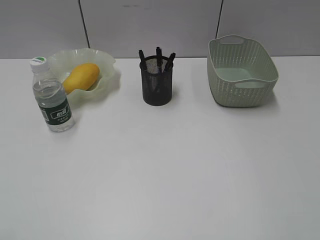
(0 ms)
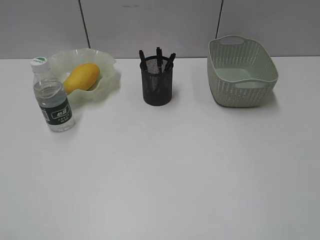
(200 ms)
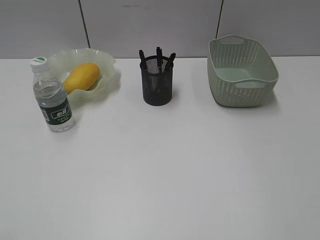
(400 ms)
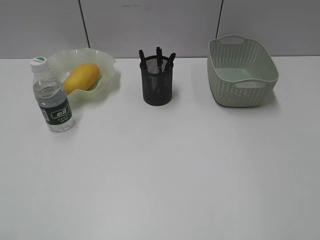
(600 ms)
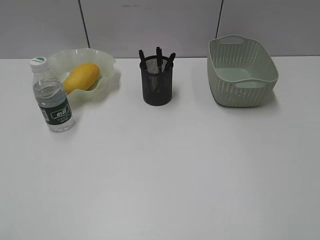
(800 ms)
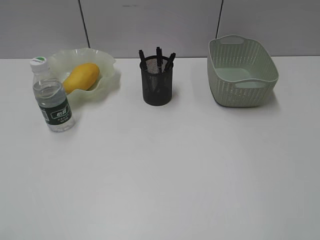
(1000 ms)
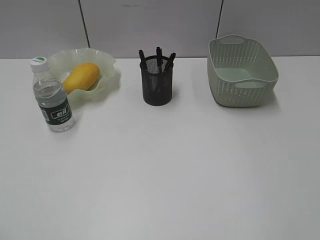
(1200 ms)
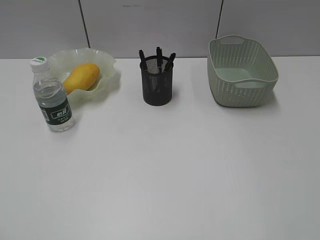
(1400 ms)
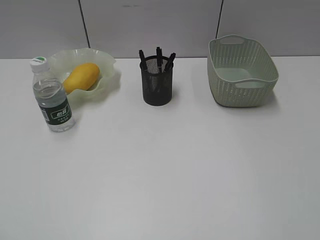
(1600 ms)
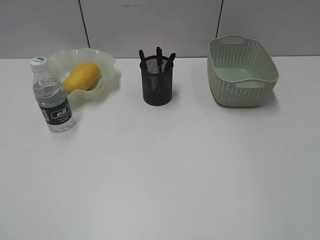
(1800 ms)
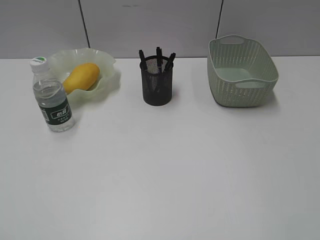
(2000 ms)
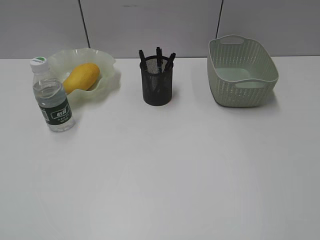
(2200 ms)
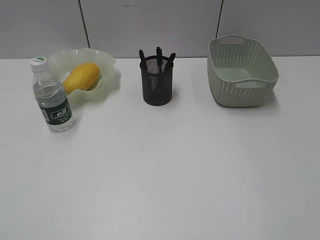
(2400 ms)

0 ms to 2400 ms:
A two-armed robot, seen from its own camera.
0 ms to 1200 ms: Both grippers stay put.
1200 ms to 2400 ms: The two grippers keep their place.

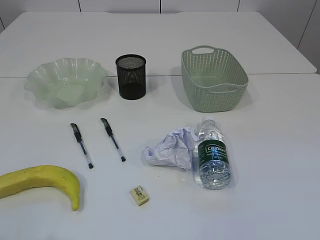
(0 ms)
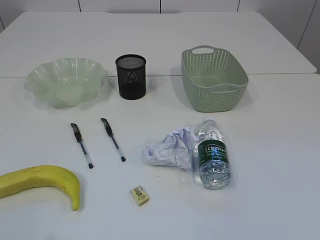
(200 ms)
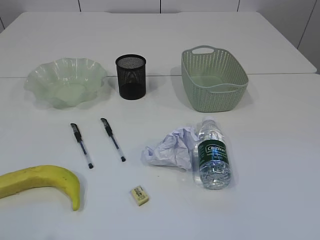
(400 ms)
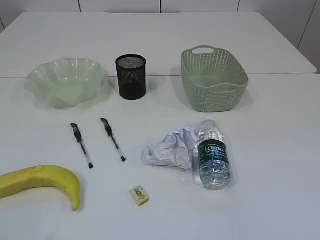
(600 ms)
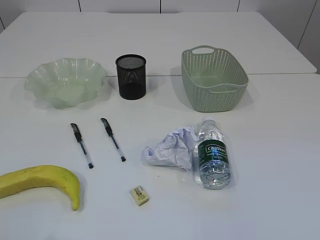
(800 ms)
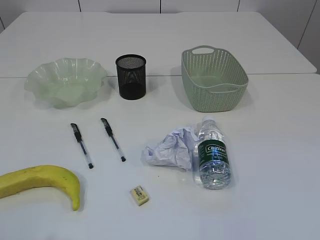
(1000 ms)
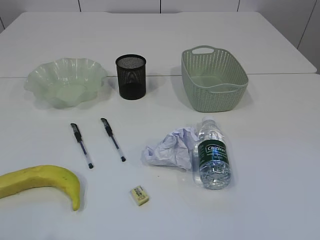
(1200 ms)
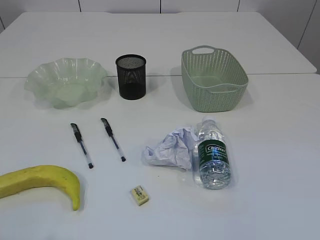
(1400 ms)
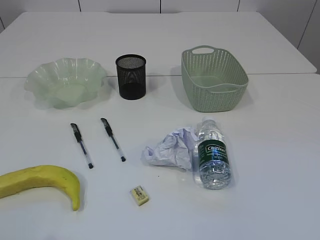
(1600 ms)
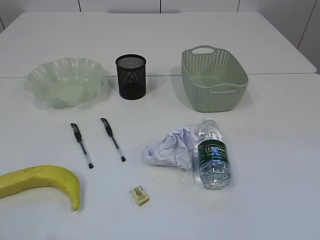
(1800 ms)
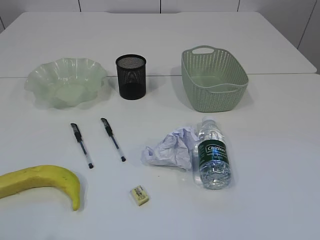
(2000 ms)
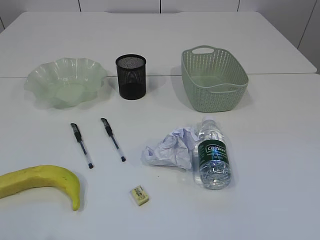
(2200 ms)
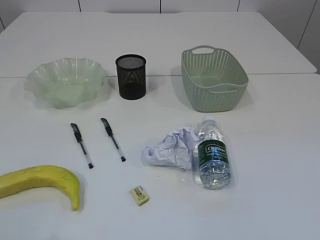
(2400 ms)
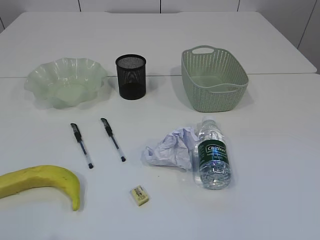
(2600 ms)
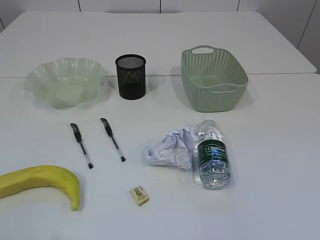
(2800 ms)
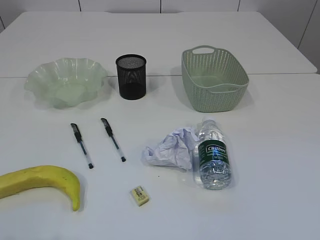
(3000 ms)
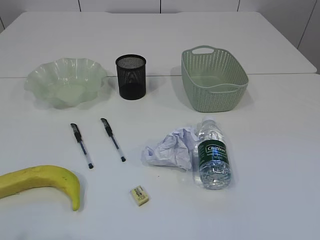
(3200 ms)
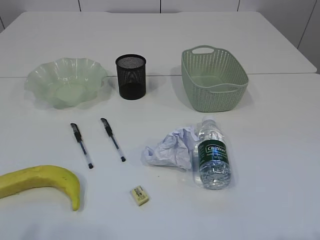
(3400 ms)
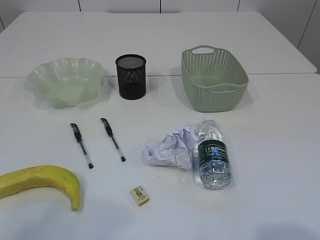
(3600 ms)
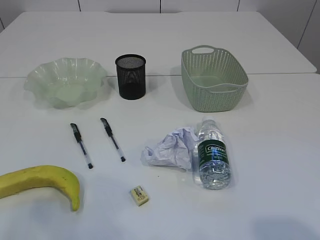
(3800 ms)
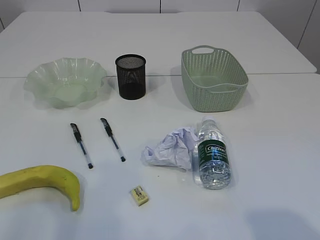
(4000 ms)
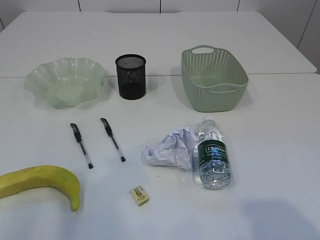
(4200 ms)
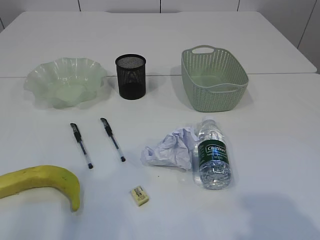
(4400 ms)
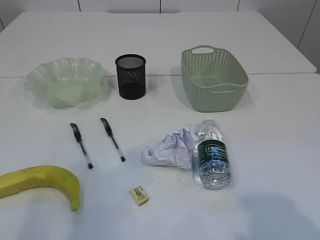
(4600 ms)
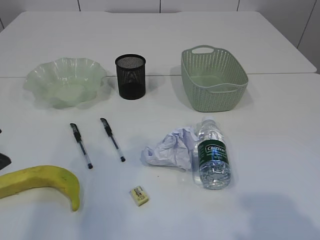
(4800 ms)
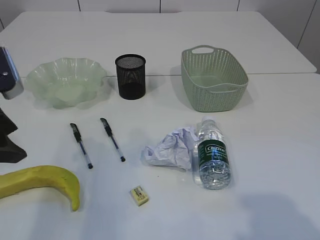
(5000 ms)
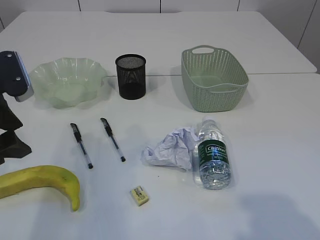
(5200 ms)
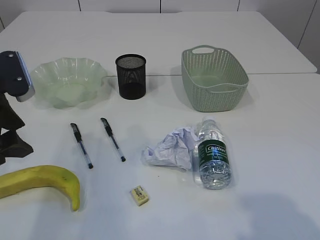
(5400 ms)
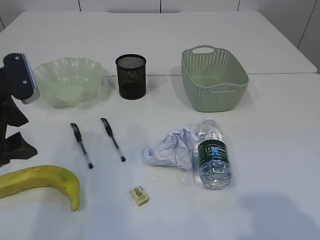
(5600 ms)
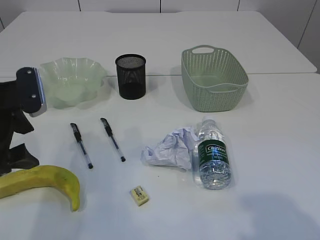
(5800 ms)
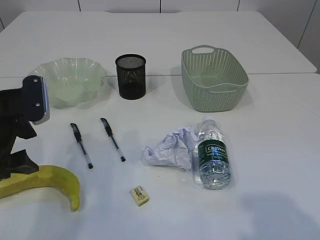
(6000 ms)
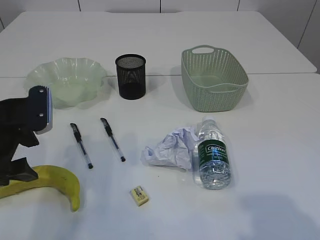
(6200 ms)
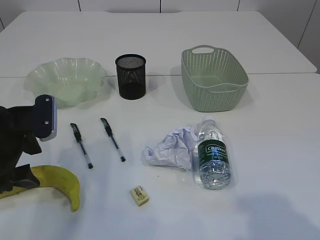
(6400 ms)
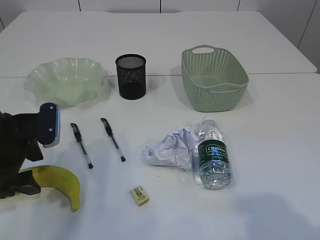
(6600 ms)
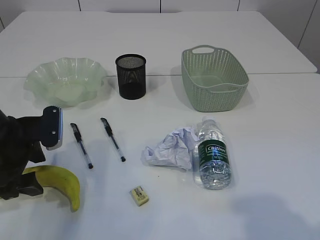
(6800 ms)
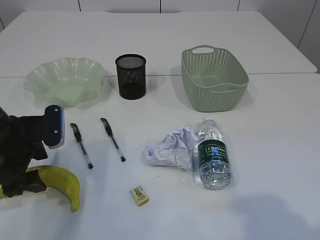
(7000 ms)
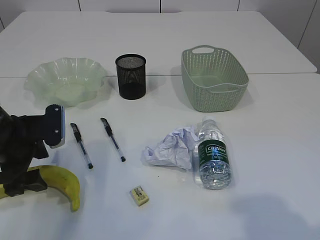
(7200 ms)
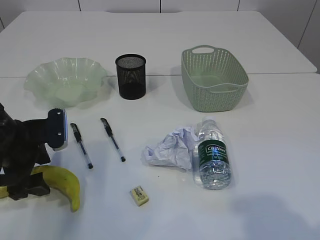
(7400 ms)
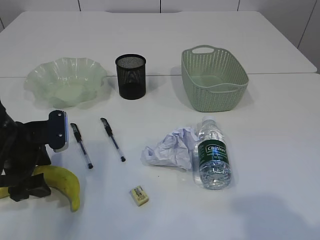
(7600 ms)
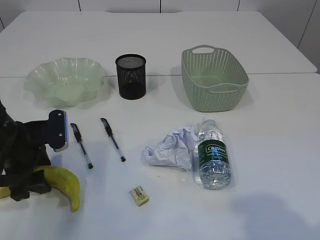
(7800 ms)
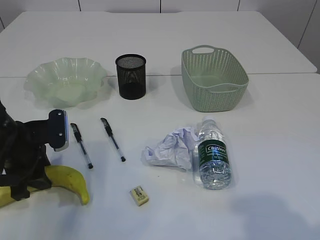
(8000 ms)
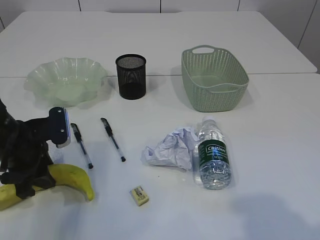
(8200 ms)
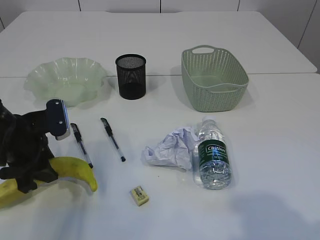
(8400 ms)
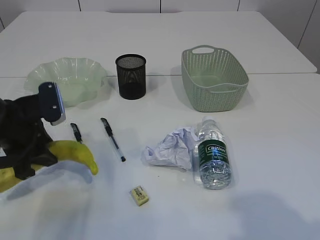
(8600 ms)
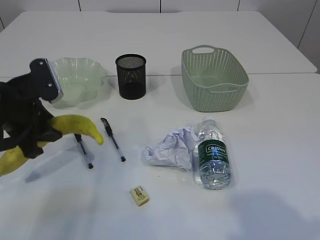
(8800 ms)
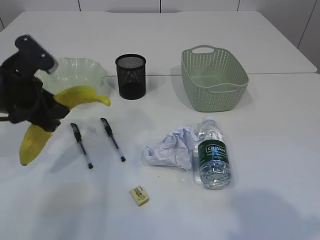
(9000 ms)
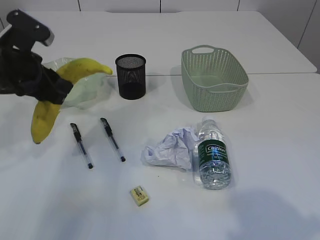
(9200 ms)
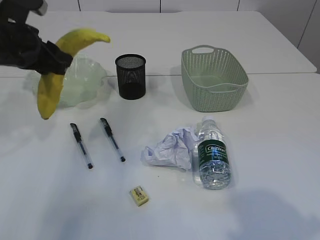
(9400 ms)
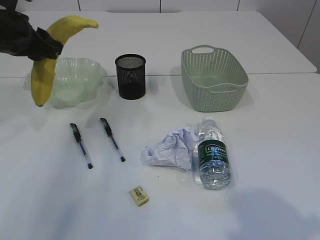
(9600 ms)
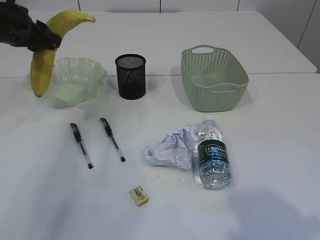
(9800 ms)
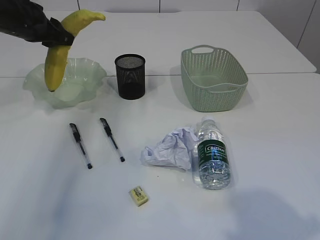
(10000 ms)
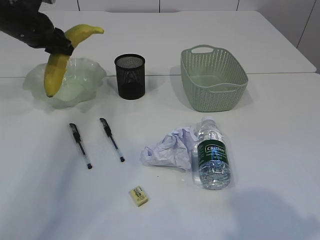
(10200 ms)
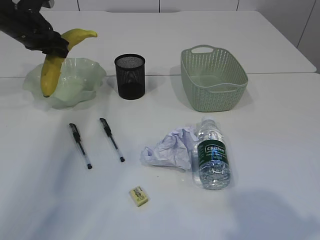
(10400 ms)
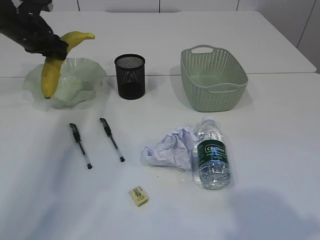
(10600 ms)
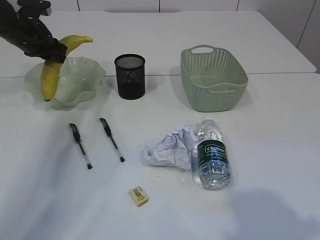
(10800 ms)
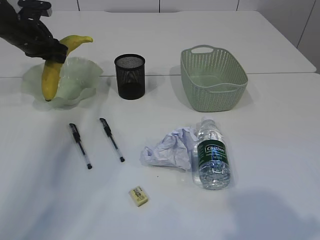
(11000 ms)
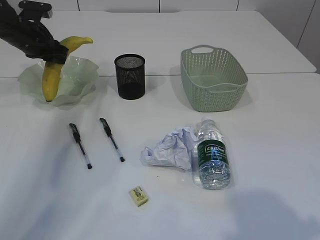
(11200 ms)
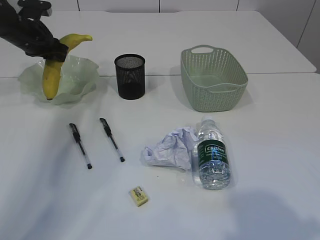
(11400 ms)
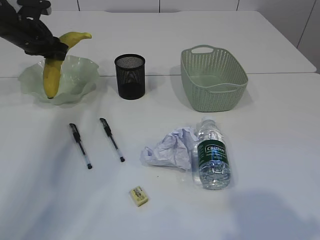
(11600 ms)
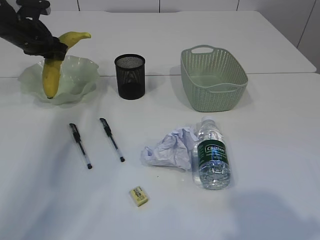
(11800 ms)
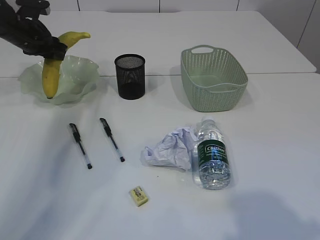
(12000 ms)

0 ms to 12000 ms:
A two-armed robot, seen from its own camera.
1600 ms to 3000 ms: Both grippers stay put.
3000 ms to 4400 ms: The left gripper shifts some 15 cm forward.
4400 ms to 6000 ms: The left gripper travels forward and downward by roughly 15 cm.
6000 ms to 7600 ms: The left gripper goes about 5 cm downward.
7600 ms to 9000 ms: The left gripper moves upward, roughly 10 cm, and closes up.
9000 ms to 10400 ms: The left gripper heads forward, covering some 20 cm.
10400 ms to 12000 ms: The grippers stay close to where they were, moving slightly.

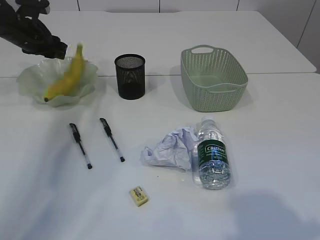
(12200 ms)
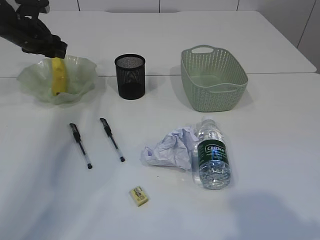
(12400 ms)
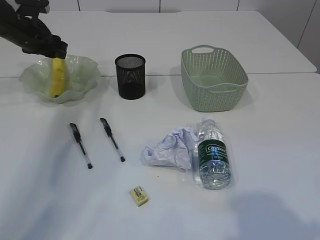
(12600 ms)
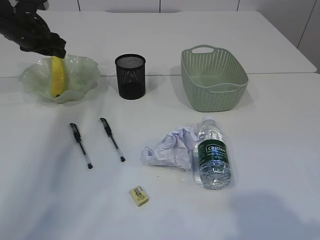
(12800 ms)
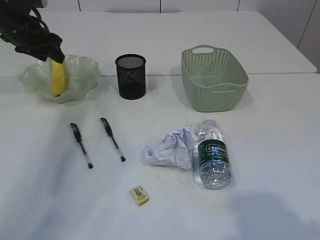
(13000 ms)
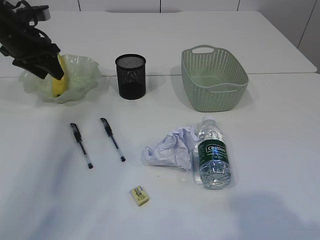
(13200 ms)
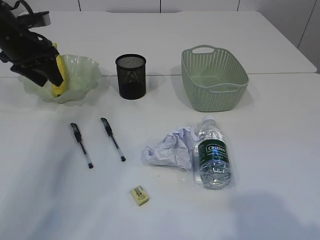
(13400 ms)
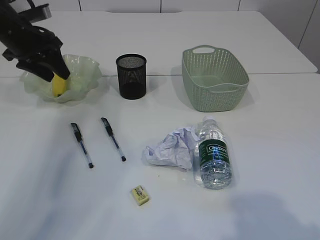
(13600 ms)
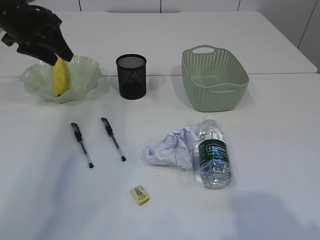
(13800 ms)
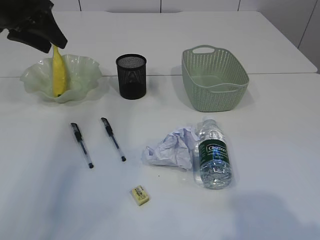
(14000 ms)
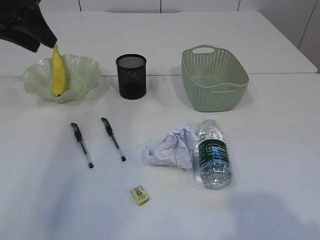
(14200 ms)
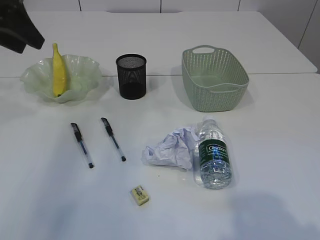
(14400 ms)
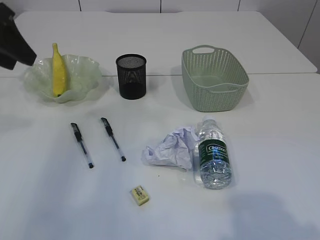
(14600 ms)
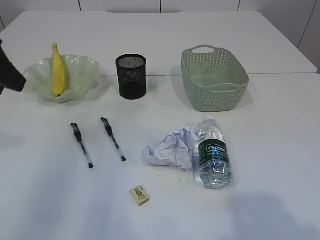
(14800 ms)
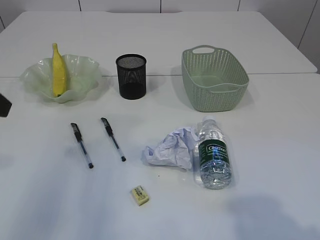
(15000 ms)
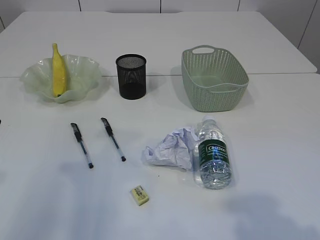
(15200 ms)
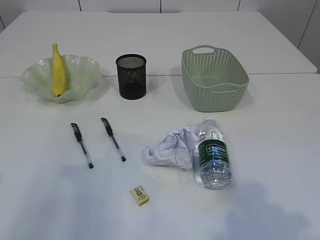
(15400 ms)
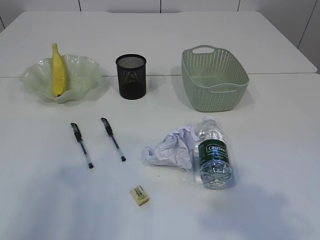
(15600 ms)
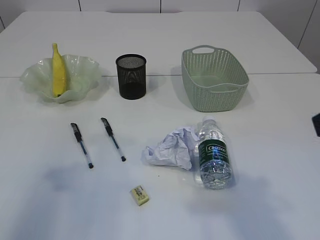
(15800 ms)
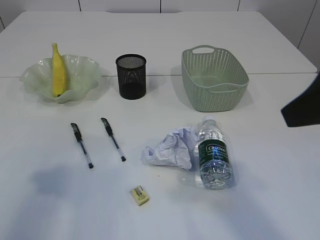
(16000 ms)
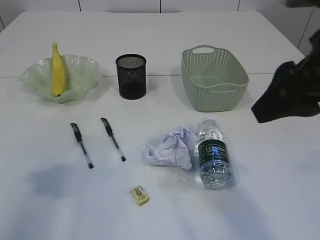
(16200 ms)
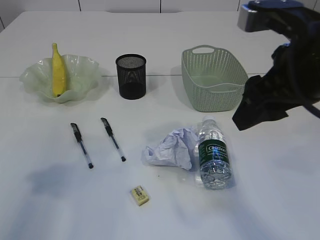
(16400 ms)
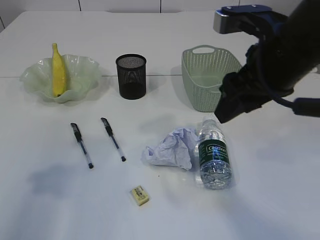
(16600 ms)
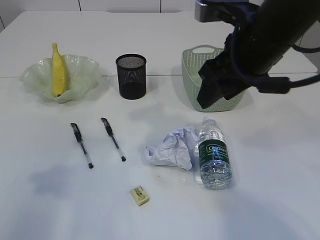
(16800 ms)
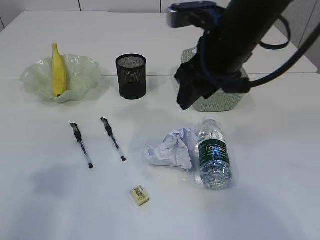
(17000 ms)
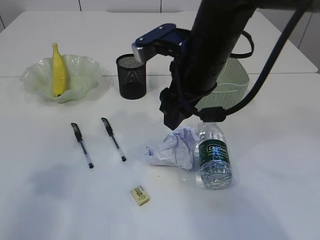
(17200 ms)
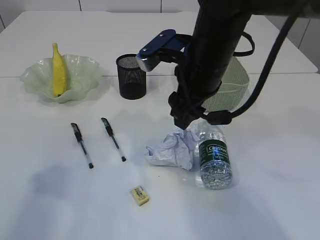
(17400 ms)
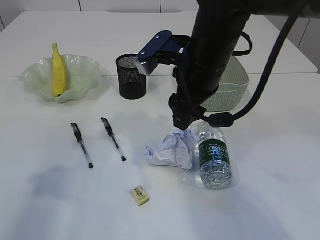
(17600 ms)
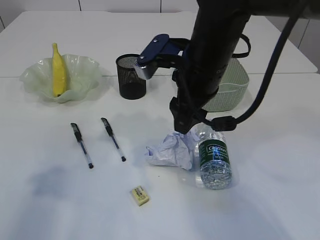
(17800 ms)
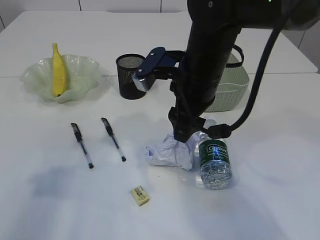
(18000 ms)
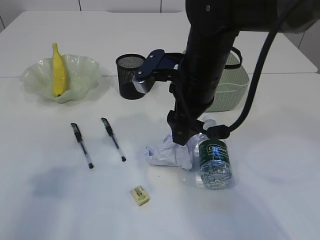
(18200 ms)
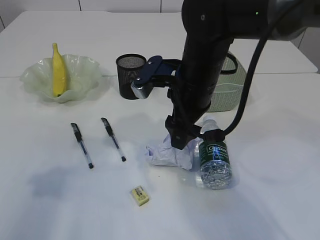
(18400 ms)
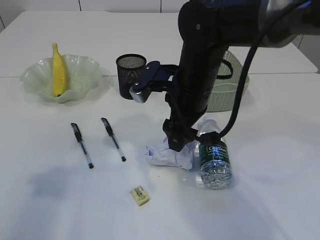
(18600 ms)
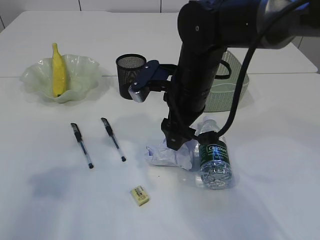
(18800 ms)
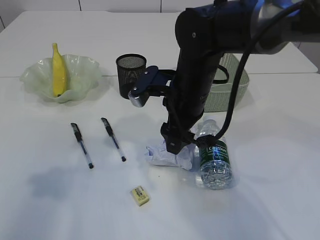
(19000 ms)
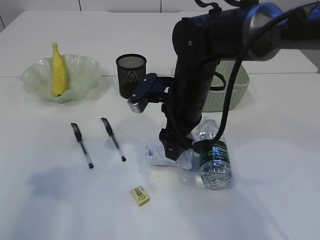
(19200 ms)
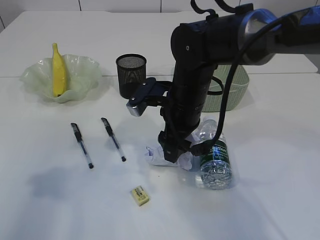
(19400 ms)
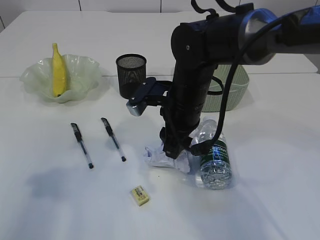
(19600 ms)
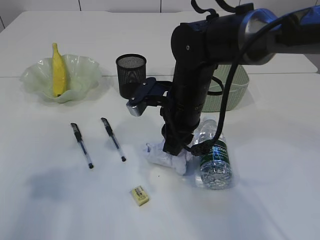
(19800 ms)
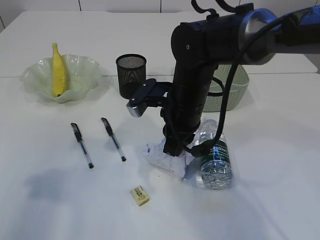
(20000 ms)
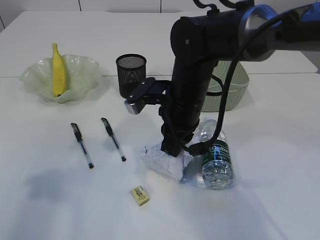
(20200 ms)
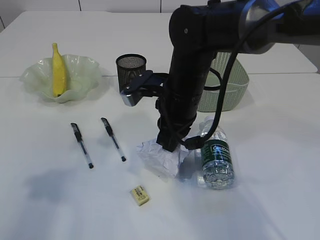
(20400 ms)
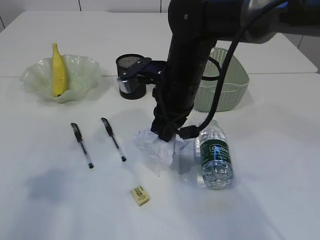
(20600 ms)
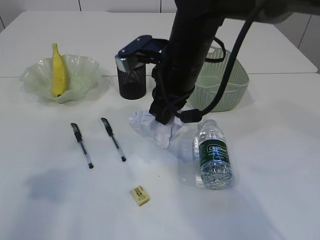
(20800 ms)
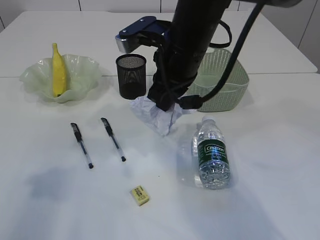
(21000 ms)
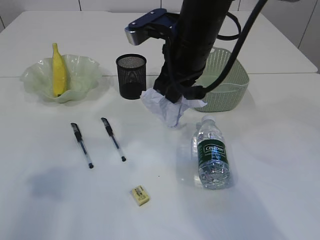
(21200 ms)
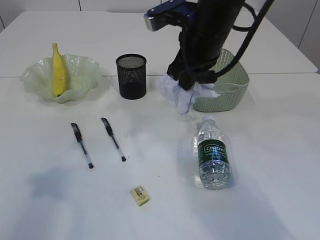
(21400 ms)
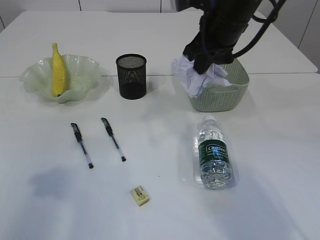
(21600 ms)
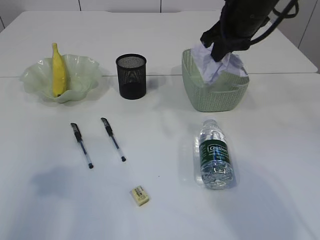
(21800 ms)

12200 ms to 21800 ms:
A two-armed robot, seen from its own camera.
Step, 14200 ms to 21000 ms: Pick up the waste paper.
12200 ms to 13800 ms: The left gripper heads upward and backward, covering about 10 cm.
13800 ms to 15400 ms: The left gripper goes some 25 cm backward.
15400 ms to 17000 ms: The right gripper heads forward and to the left, covering roughly 30 cm.
17000 ms to 18600 ms: The right gripper travels downward by roughly 10 cm.
18600 ms to 20200 ms: The right gripper closes up.
20200 ms to 21800 ms: The right gripper shifts approximately 20 cm to the right, upward and forward.
